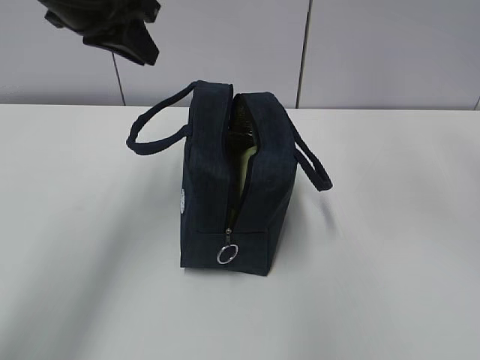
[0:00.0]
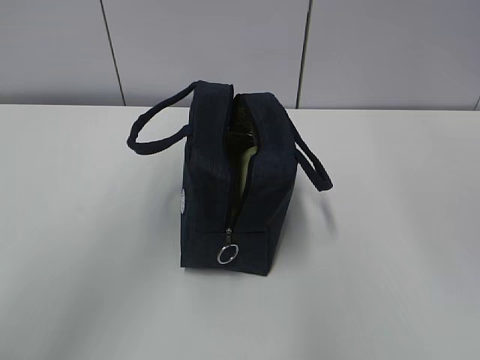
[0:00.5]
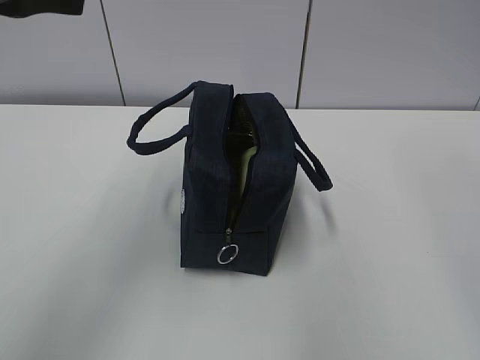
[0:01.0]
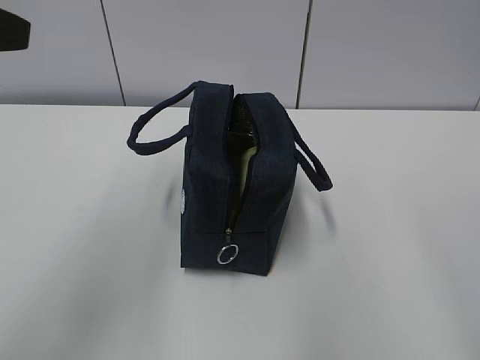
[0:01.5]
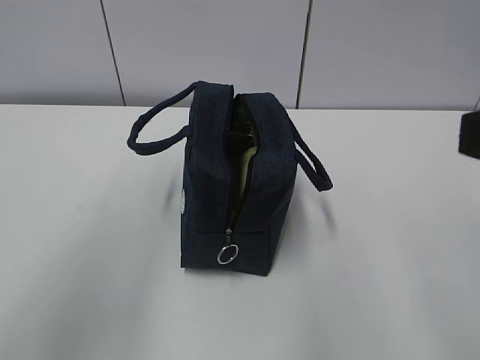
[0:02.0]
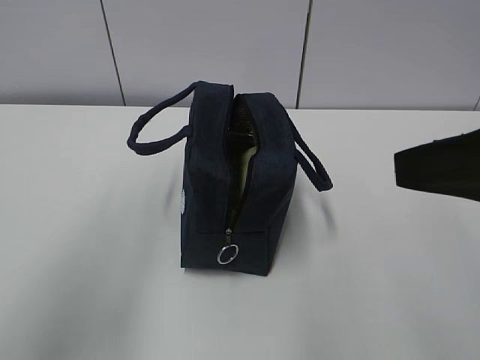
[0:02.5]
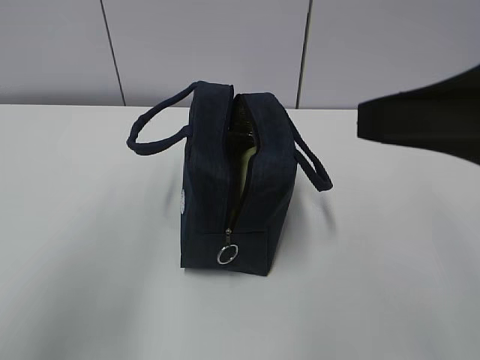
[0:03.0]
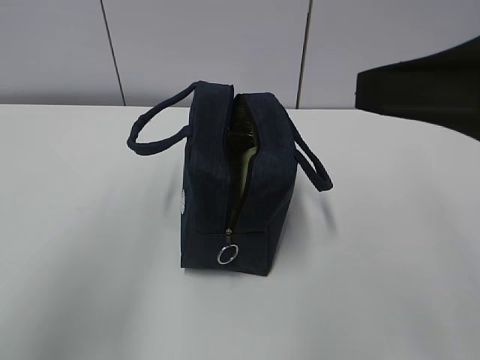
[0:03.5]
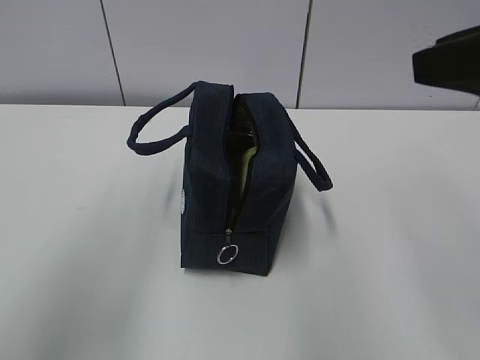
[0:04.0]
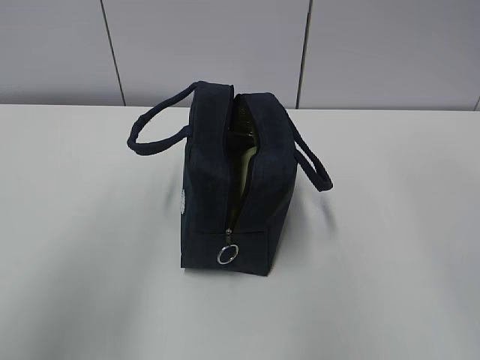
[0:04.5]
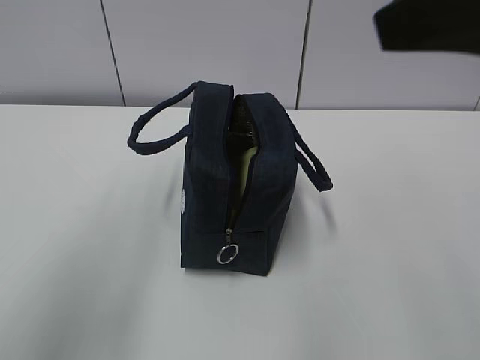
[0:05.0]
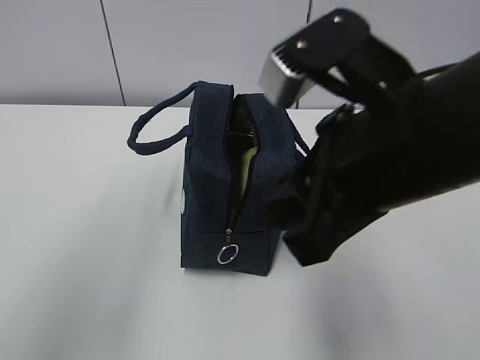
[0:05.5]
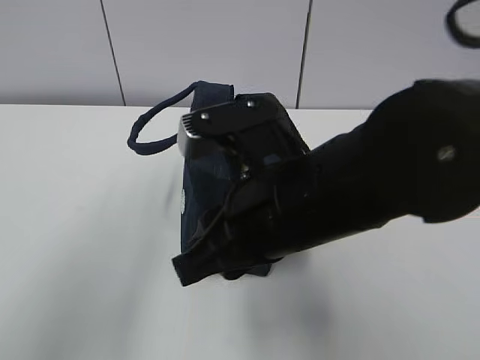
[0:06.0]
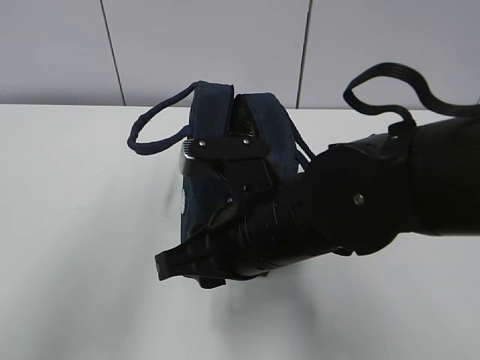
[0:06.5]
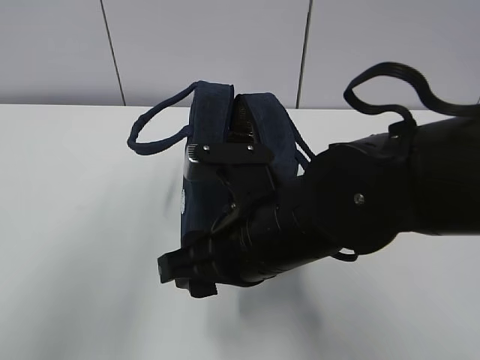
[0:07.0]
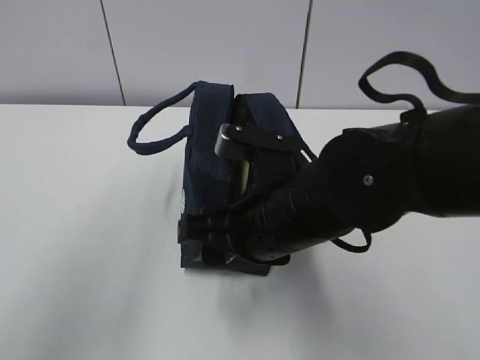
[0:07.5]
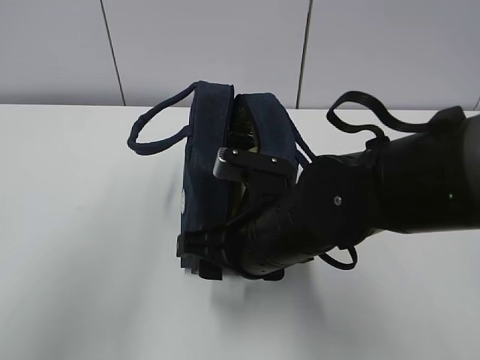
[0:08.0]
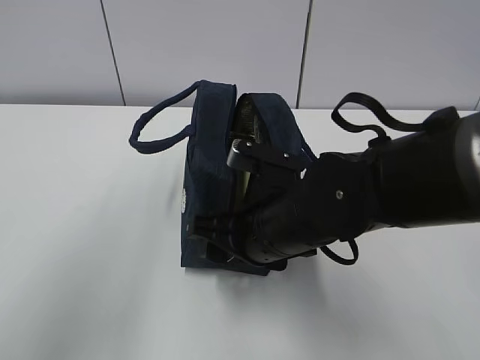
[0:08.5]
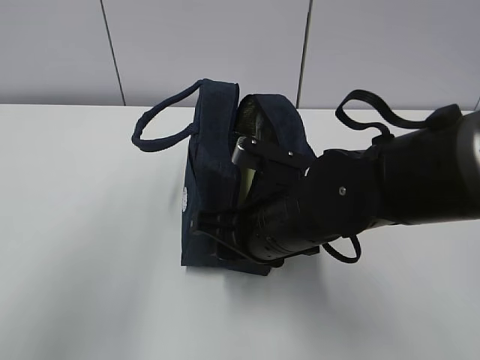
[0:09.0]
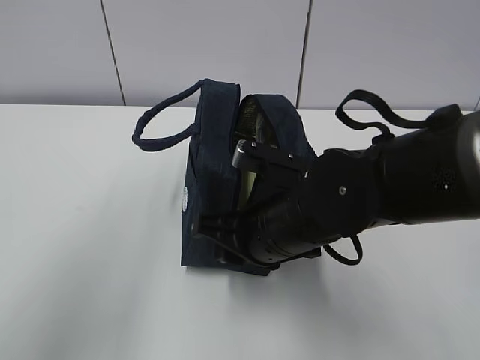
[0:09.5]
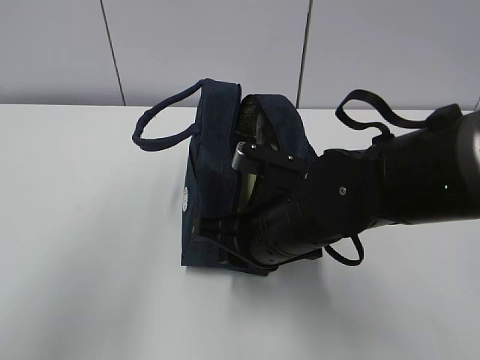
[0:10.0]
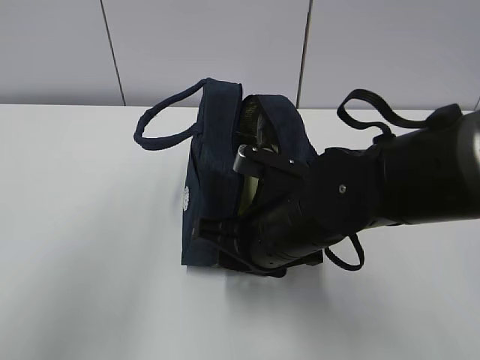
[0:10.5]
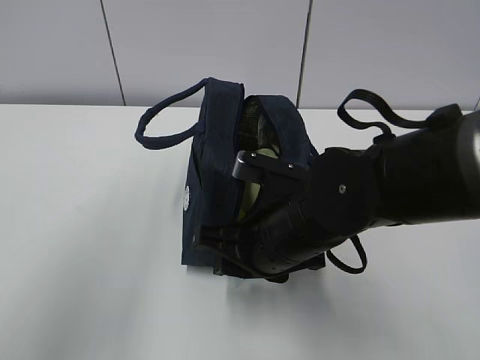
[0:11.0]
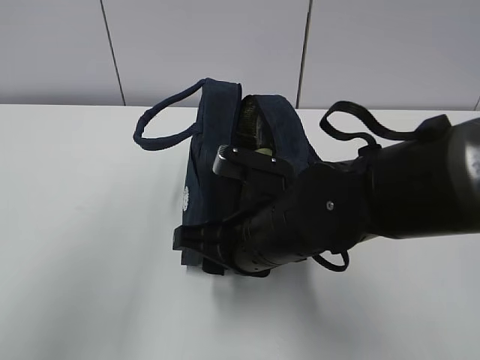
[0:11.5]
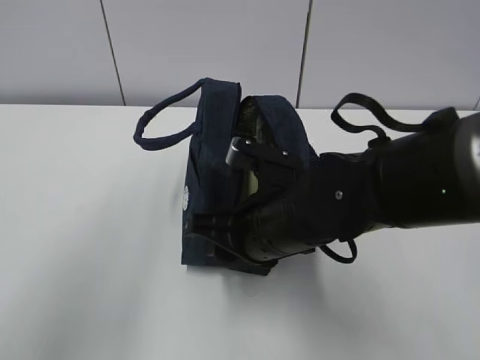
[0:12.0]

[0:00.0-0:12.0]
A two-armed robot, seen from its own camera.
0:00.0 to 0:02.0: The two grippers go roughly 25 cm backward.
0:02.0 to 0:04.0: The right gripper shifts roughly 5 cm forward.
0:04.0 to 0:06.0: The right gripper moves to the left and downward, about 20 cm.
0:06.0 to 0:08.0: The right gripper is displaced downward by approximately 10 cm, and opens.
0:08.0 to 0:10.0: The right gripper closes up.
0:10.0 to 0:12.0: The grippers stay close to where they were, moving slightly.

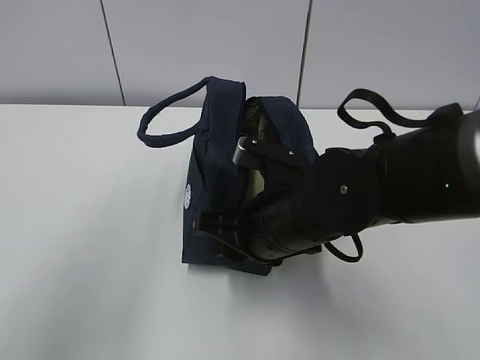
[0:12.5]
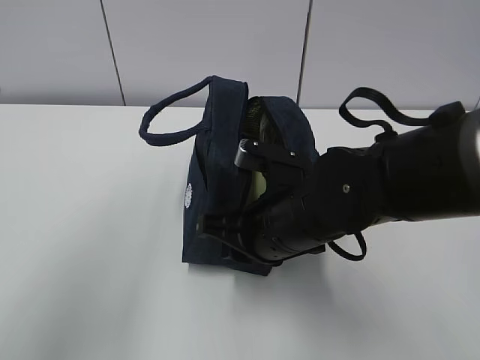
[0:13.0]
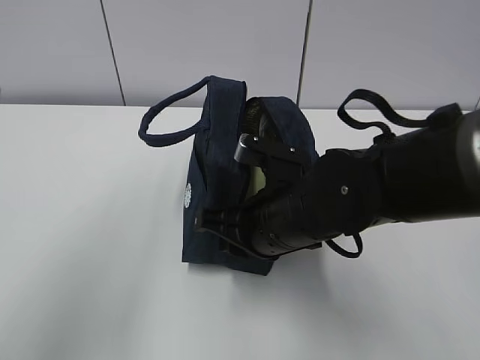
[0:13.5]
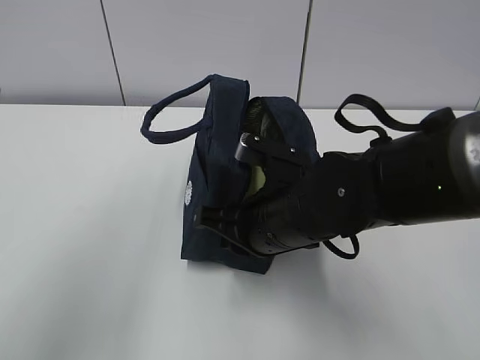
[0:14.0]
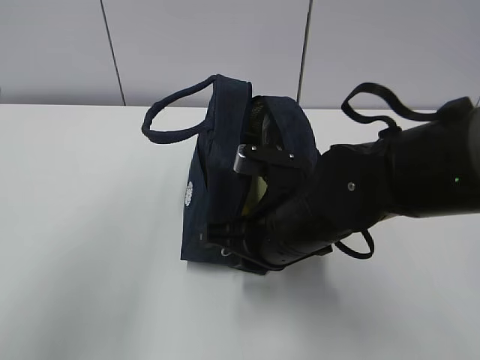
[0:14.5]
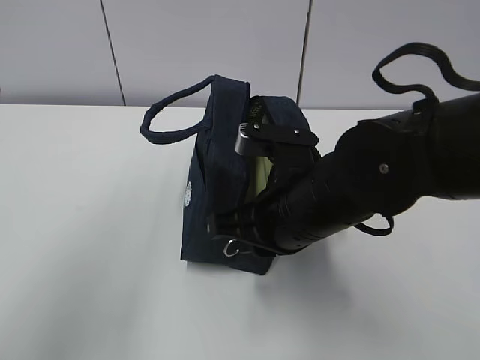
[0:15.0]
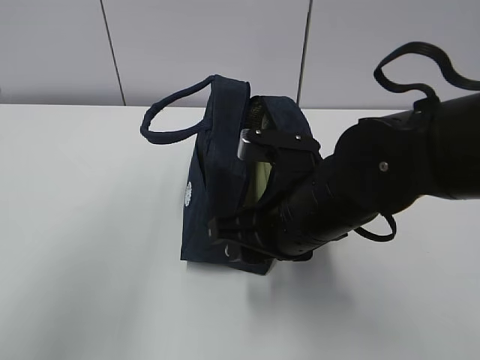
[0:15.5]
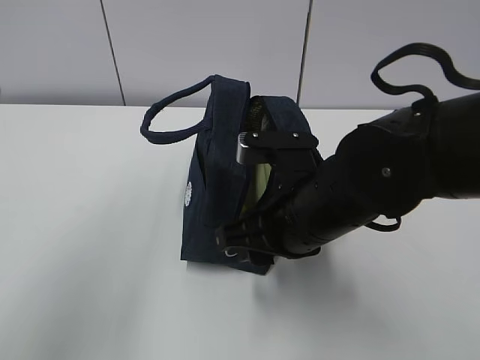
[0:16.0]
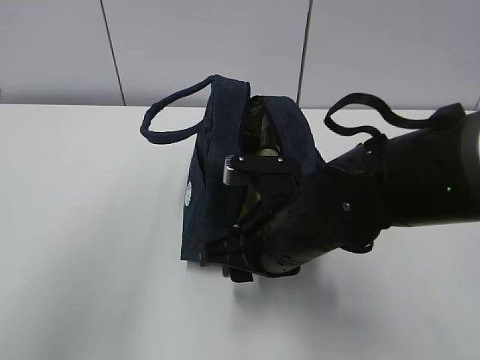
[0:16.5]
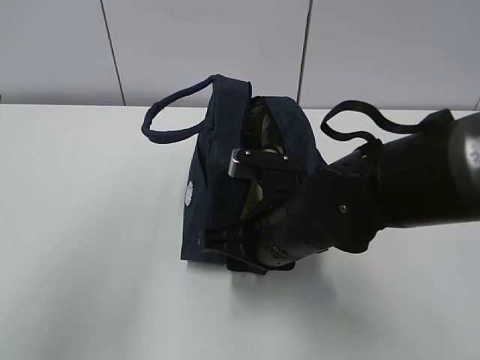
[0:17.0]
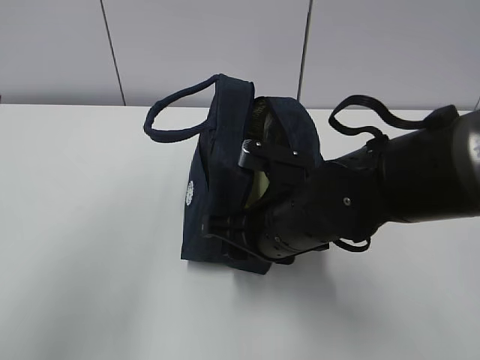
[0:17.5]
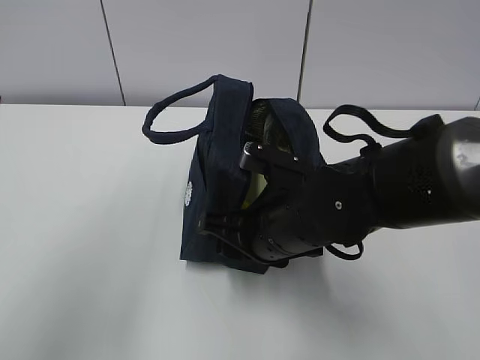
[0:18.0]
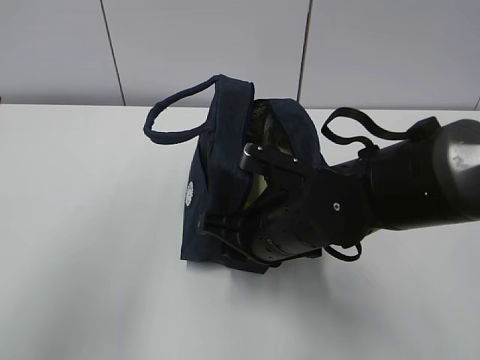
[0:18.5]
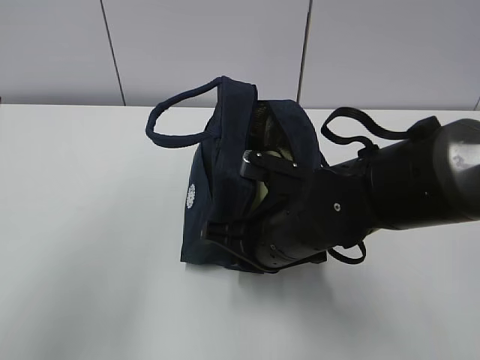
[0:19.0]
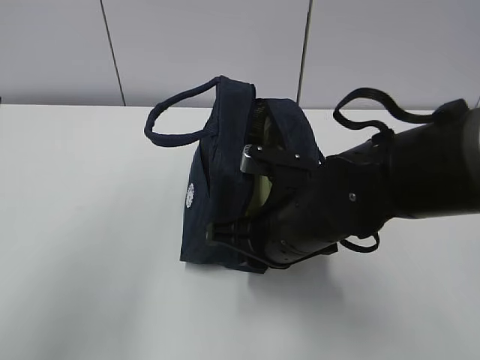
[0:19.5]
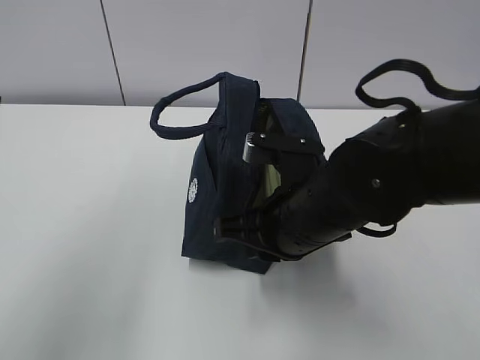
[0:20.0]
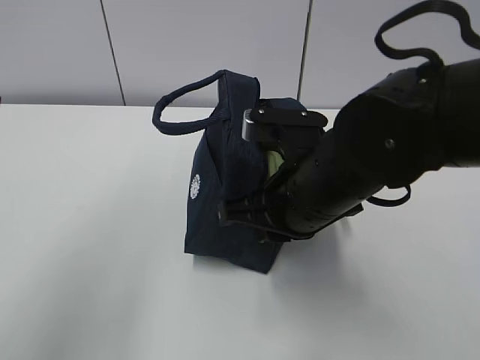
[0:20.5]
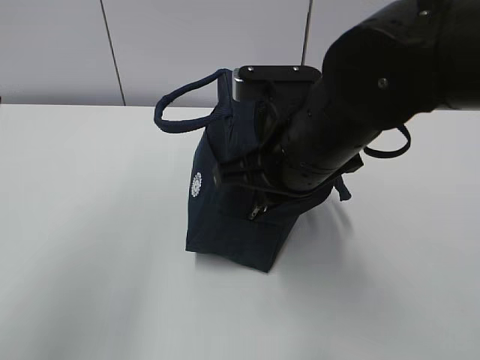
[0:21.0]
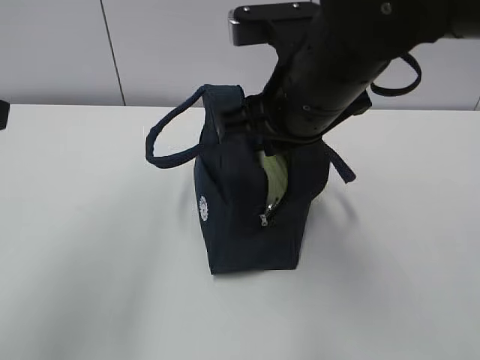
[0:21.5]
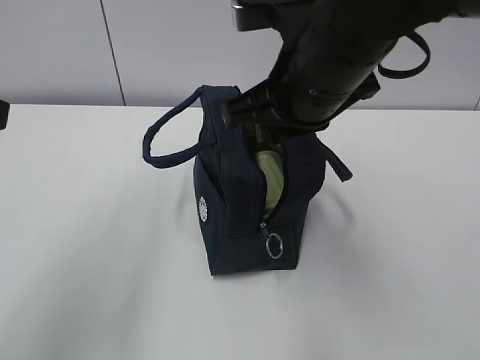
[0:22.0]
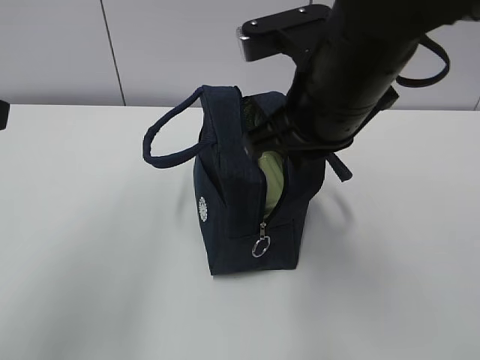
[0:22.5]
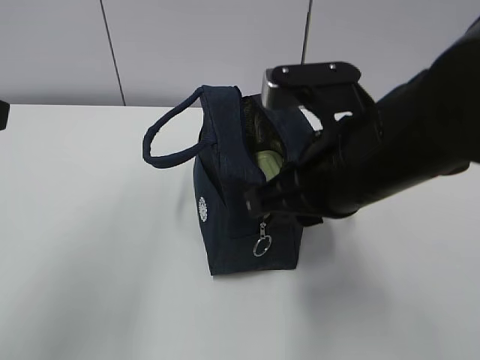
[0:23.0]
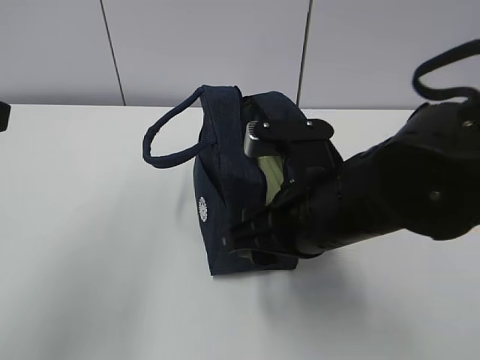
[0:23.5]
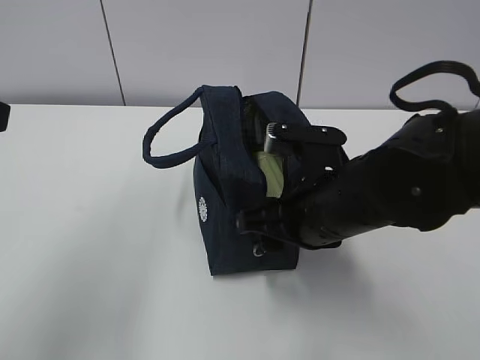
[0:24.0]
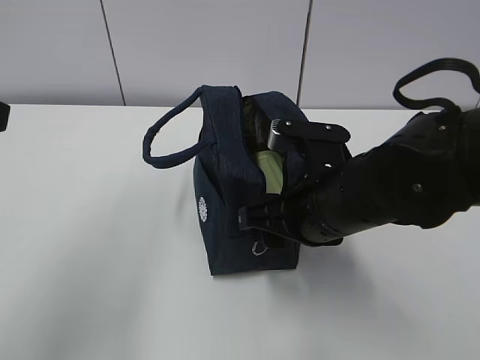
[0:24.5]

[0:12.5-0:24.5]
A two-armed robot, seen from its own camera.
0:12.5 to 0:14.5: The right gripper closes up.
0:14.5 to 0:16.5: The right gripper opens its fingers.
0:16.5 to 0:18.5: The grippers stay close to where they were, moving slightly.
0:18.5 to 0:20.5: The right gripper travels upward by roughly 5 cm.
0:20.5 to 0:22.5: The right gripper travels upward by some 10 cm.
0:22.5 to 0:24.5: The right gripper travels downward by some 10 cm, and opens up.

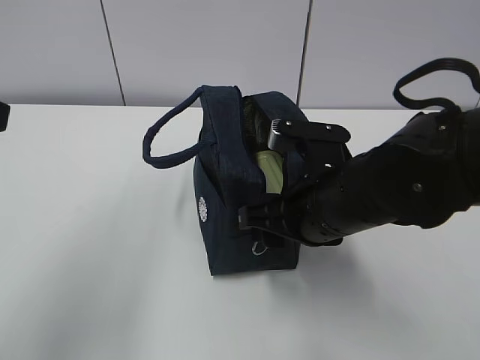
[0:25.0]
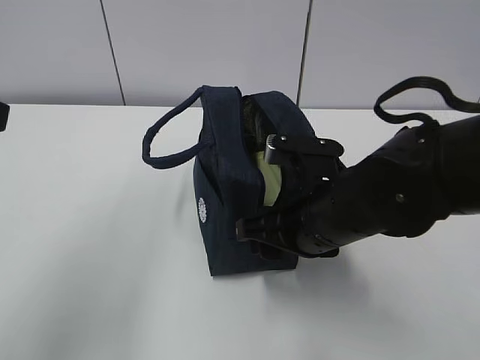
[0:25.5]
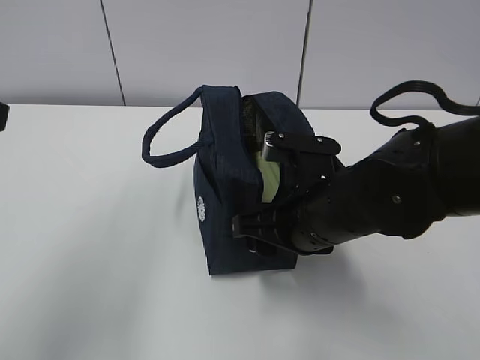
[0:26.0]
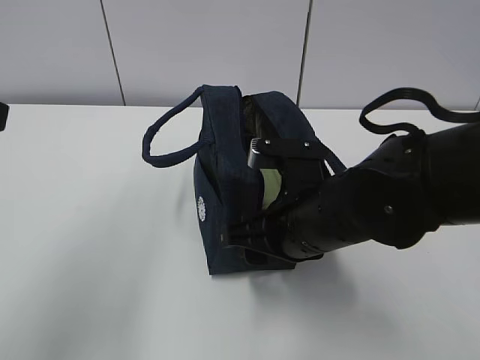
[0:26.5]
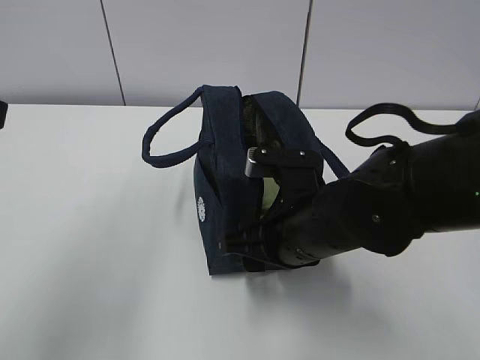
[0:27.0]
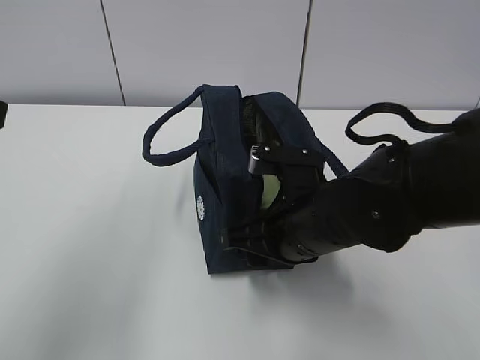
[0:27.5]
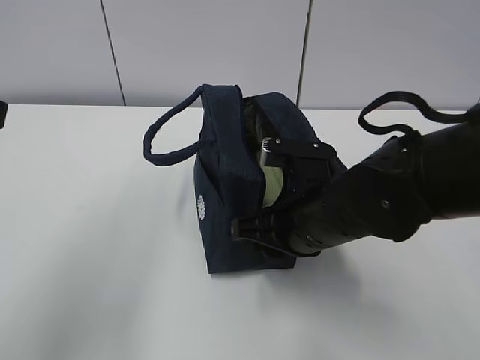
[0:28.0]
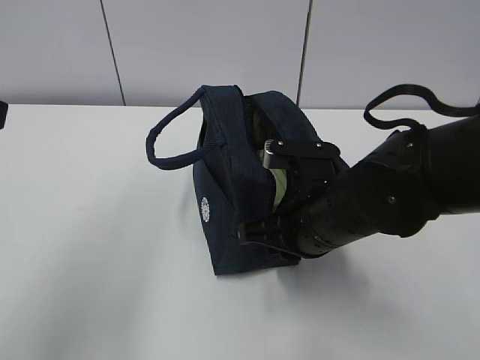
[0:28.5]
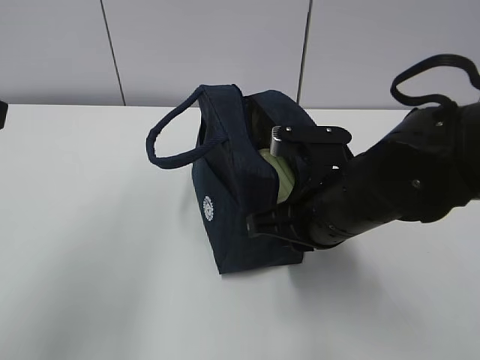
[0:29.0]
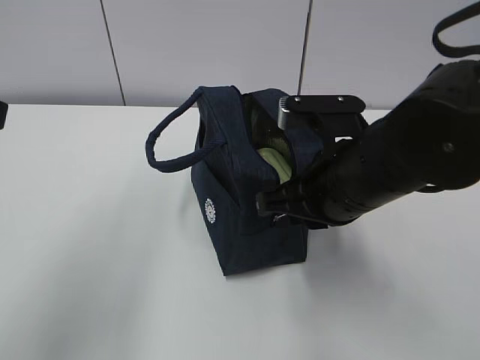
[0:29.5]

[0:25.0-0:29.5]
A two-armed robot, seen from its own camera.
0:25.0 to 0:27.0: The grippers move only a little.
0:27.0 to 0:29.5: The right gripper heads upward, covering roughly 5 cm, and closes up.
